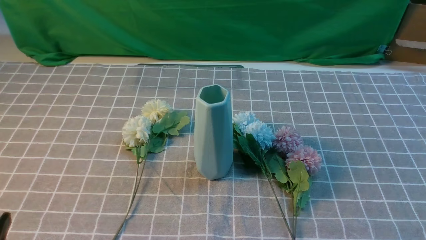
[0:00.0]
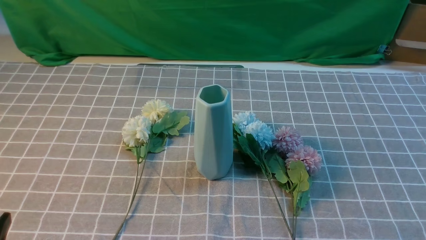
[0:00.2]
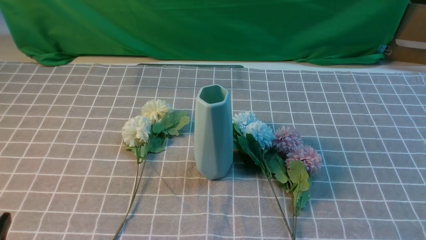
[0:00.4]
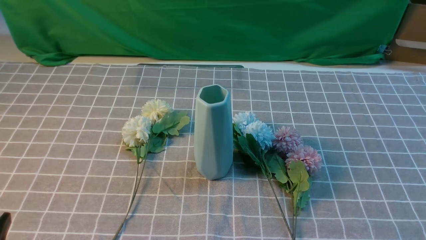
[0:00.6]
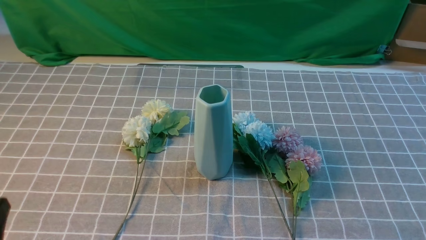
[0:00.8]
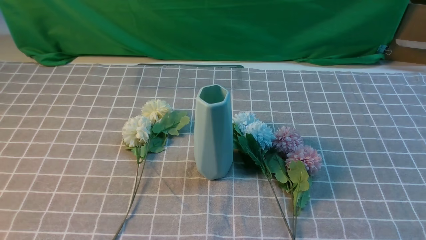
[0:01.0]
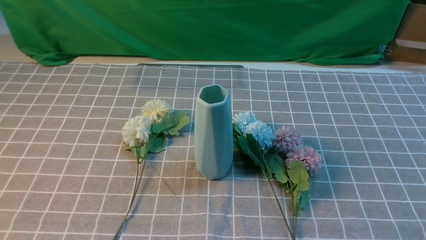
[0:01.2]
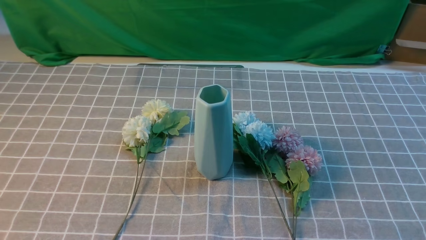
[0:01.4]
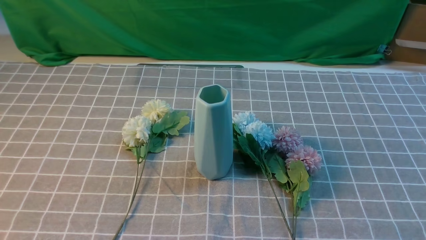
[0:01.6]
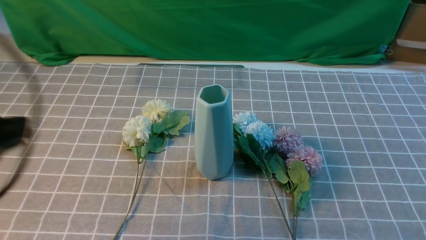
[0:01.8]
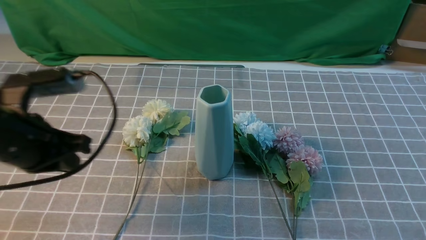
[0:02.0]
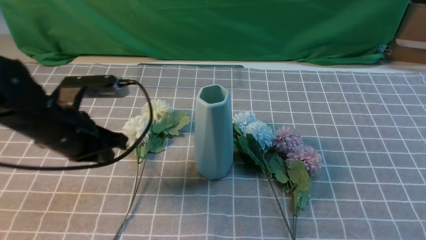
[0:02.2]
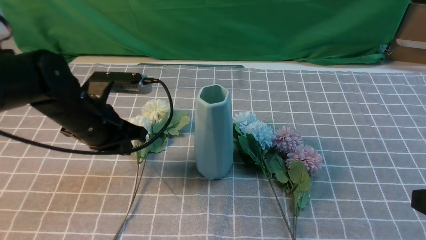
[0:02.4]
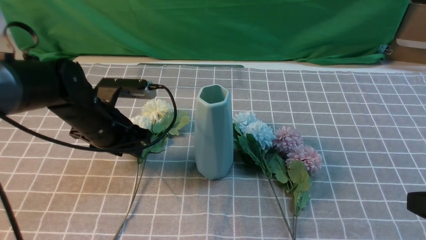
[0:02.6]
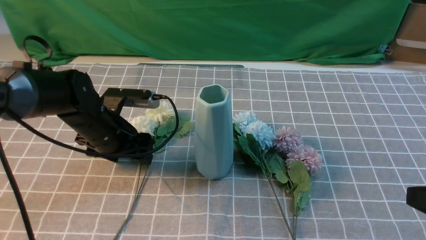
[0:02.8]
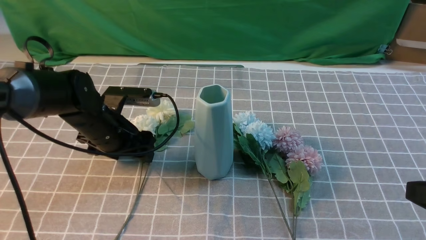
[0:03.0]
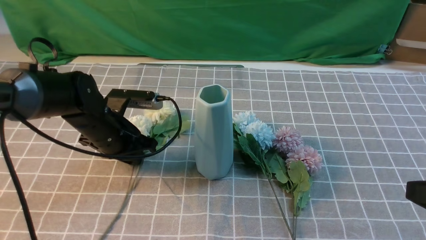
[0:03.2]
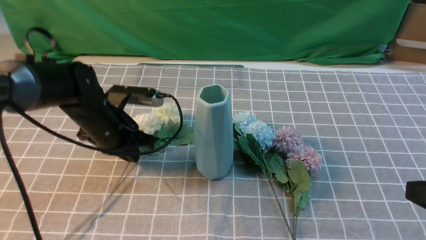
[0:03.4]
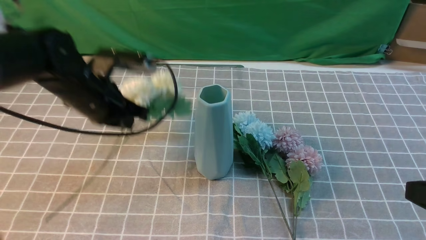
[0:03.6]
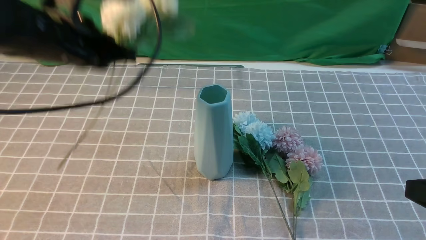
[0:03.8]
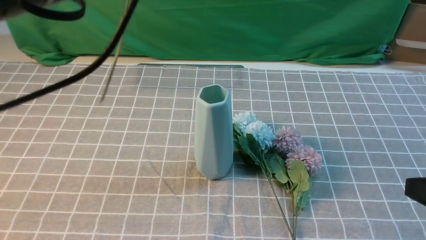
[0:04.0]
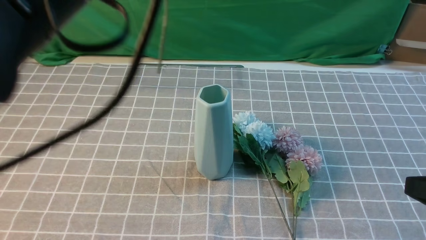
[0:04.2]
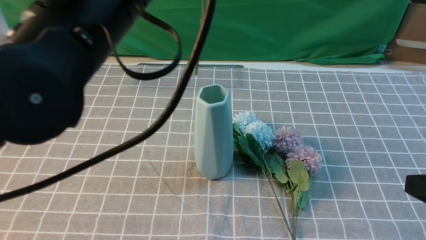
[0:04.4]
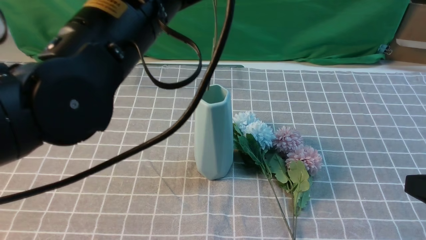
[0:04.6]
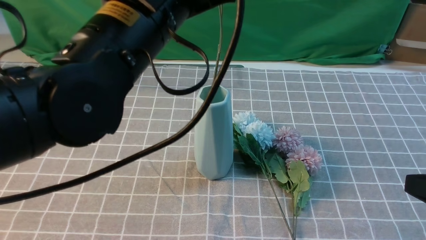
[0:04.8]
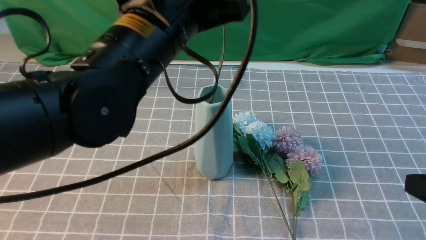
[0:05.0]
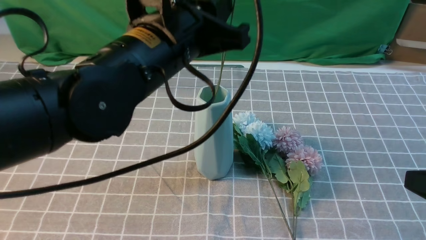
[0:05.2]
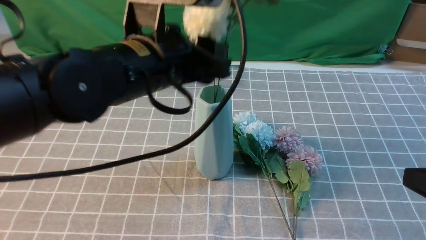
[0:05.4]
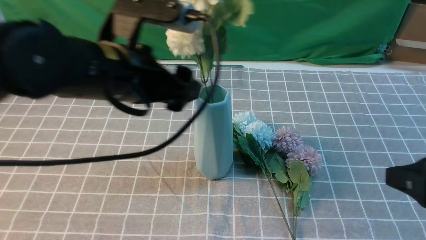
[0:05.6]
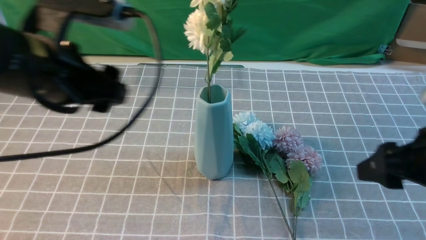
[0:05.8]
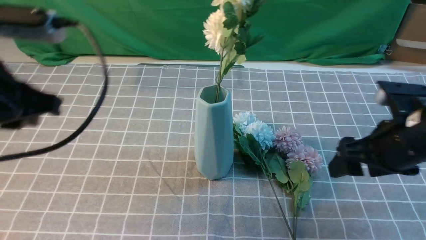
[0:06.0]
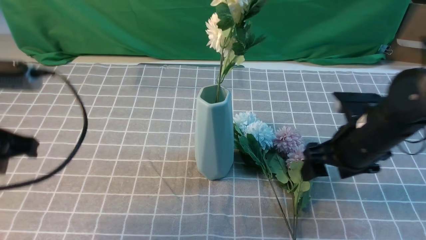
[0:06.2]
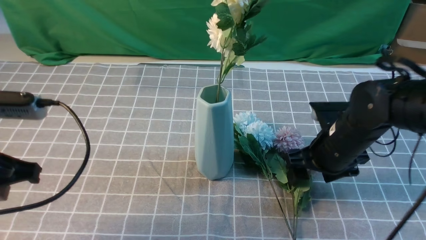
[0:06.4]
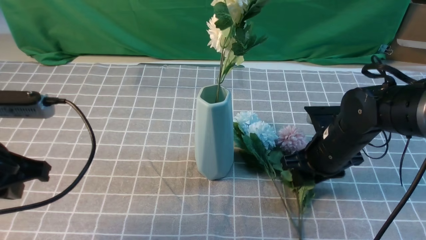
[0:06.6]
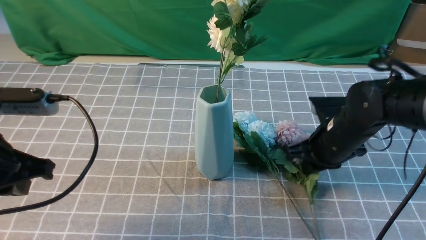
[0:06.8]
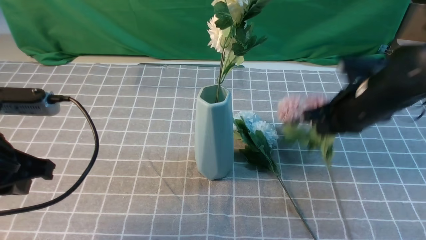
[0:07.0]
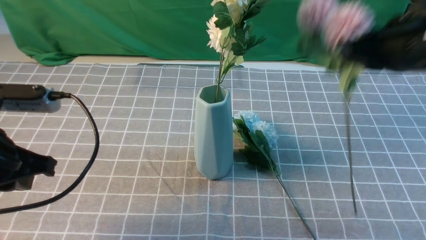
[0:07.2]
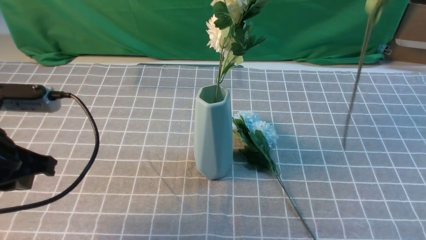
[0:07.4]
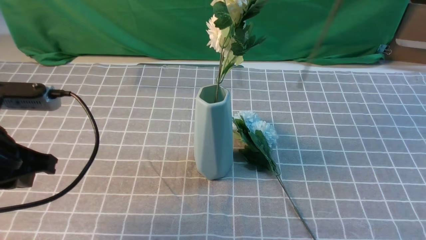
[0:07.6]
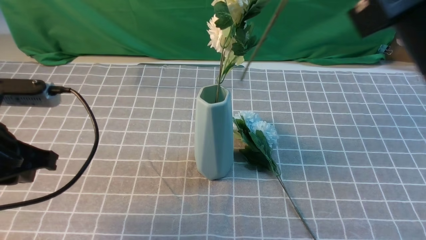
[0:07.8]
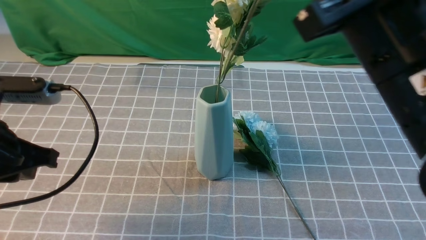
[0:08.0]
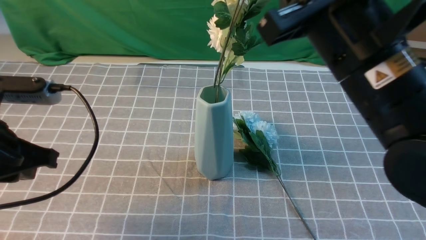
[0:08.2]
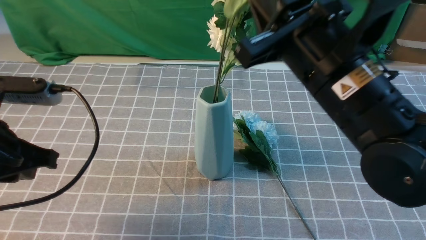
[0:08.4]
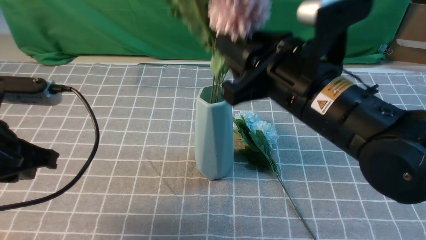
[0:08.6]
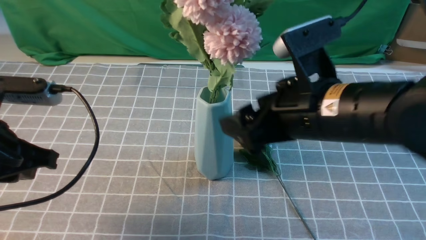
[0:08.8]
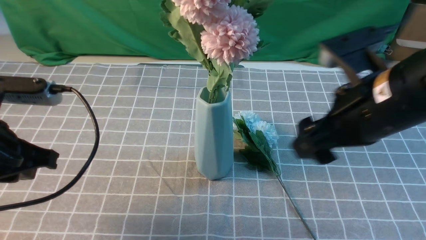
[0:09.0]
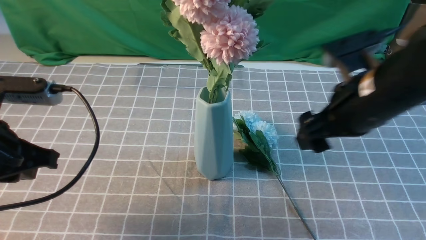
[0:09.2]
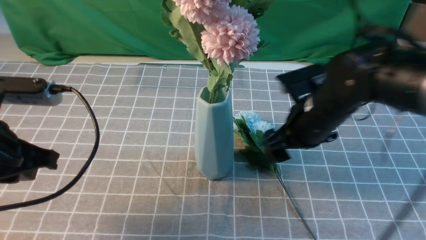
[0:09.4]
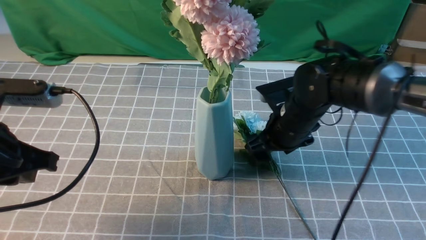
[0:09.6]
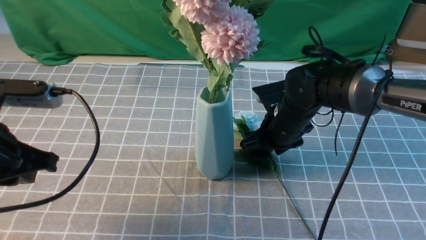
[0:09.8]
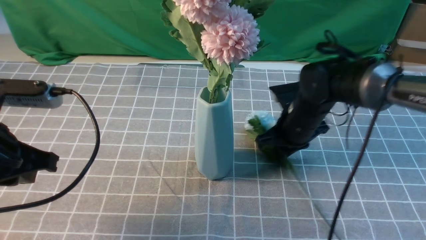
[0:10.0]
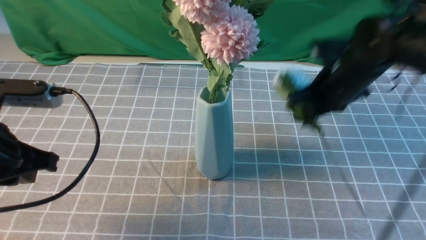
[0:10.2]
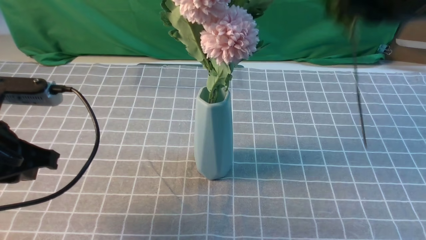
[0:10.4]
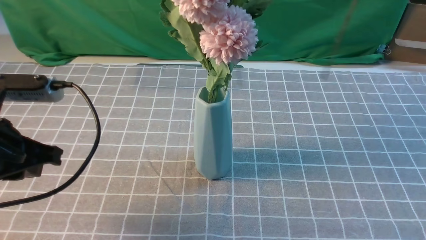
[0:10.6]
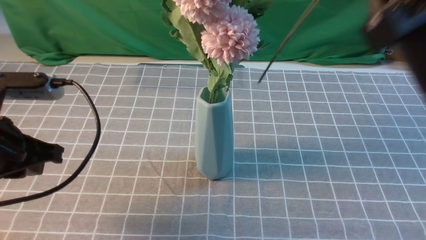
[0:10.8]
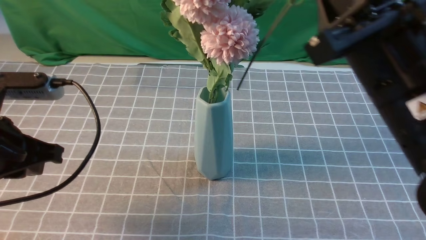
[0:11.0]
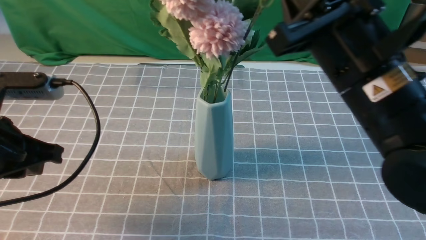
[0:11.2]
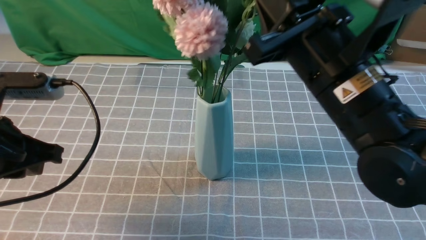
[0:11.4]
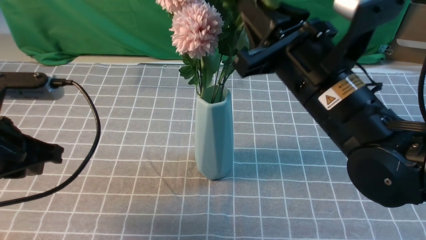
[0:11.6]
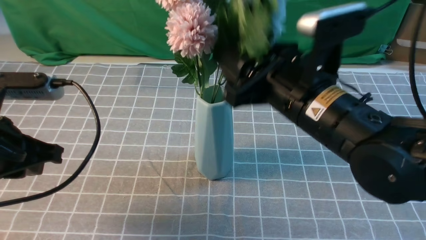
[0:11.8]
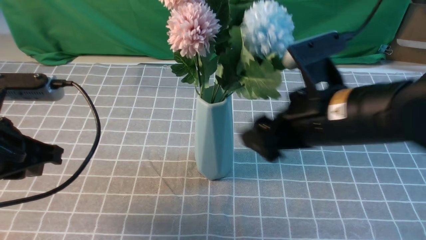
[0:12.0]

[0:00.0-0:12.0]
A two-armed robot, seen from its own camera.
Task of the whole recording: insert the flowers into the vase on the table with the grey tablecloth.
Step, 0:00.0 to 0:03.4: use the left arm to grab a bunch of fresh flowers.
Step, 0:03.6 to 0:05.6: use the left arm to insert the flowers into the vase.
Step, 0:05.8 to 0:06.8: use the right arm to grab a bunch of fresh flowers.
Step, 0:07.0 to 0:08.6: use the right arm to insert the flowers into the vase.
Step, 0:09.0 to 0:10.0: use the right arm to grab a bunch of fresh flowers.
Step, 0:10.2 to 0:11.8: use the right arm to insert the flowers into the vase.
0:01.6 to 0:03.0: The left gripper moves forward and downward, roughly 35 cm, and opens; the right gripper moves upward and forward, about 10 cm.
0:03.0 to 0:04.4: The left gripper moves upward and backward, approximately 30 cm, and closes.
0:04.4 to 0:06.0: The left gripper shifts some 15 cm to the left and downward, and opens, while the right gripper goes roughly 10 cm forward, and opens up.
0:06.0 to 0:07.6: The left gripper travels downward by some 5 cm, and closes. Meanwhile the right gripper moves upward, roughly 20 cm, and closes its fingers.
0:07.6 to 0:09.0: The right gripper shifts about 15 cm downward and to the left, and opens.
0:09.0 to 0:10.4: The right gripper heads forward and to the right, covering some 10 cm, goes downward and returns, roughly 15 cm each way, and closes its fingers.
0:10.4 to 0:12.0: The right gripper travels backward and to the left by approximately 10 cm, and opens.

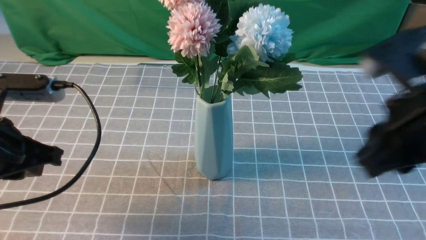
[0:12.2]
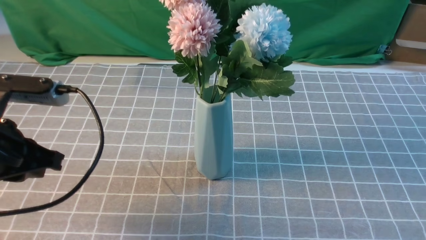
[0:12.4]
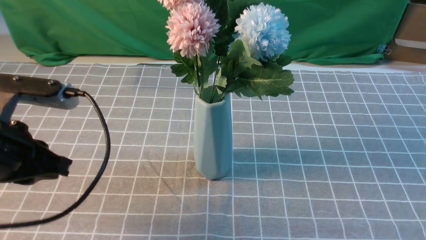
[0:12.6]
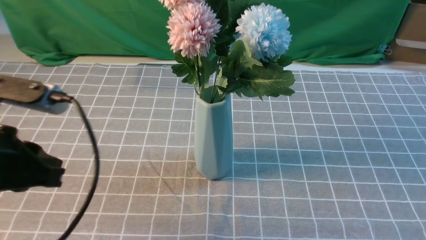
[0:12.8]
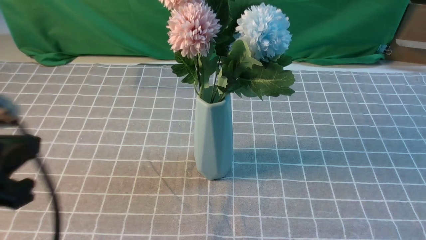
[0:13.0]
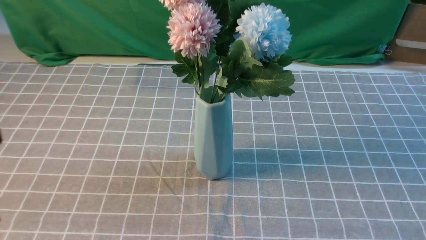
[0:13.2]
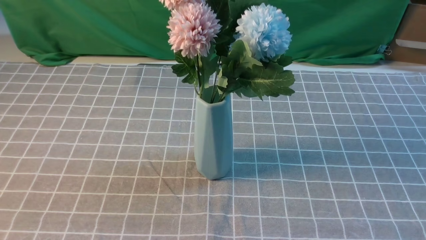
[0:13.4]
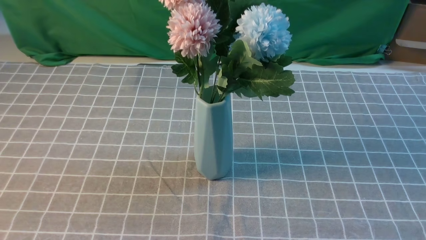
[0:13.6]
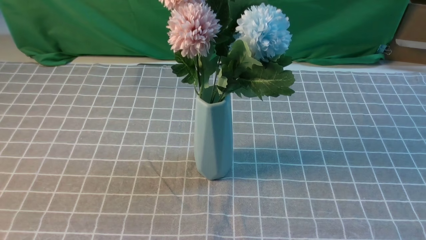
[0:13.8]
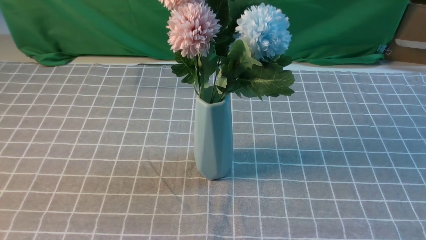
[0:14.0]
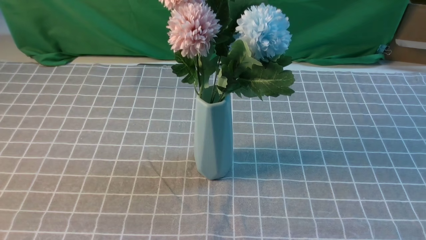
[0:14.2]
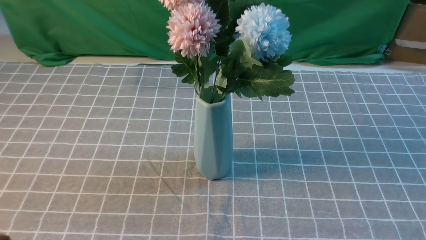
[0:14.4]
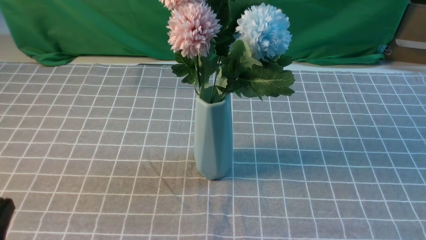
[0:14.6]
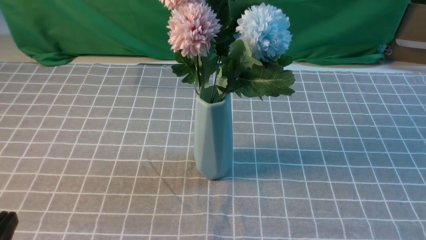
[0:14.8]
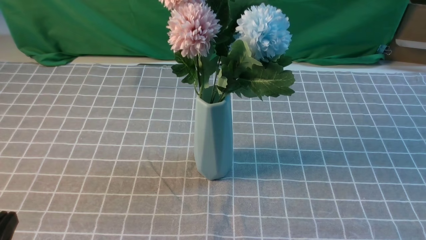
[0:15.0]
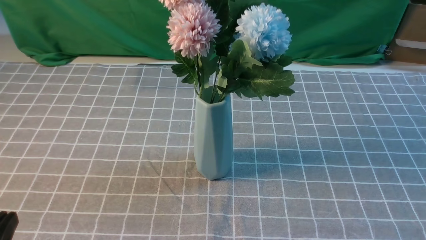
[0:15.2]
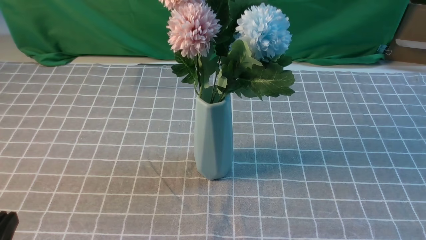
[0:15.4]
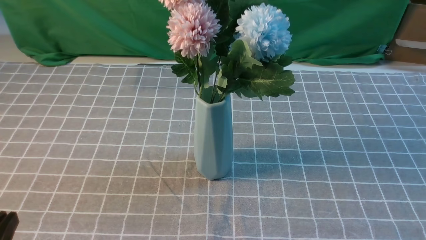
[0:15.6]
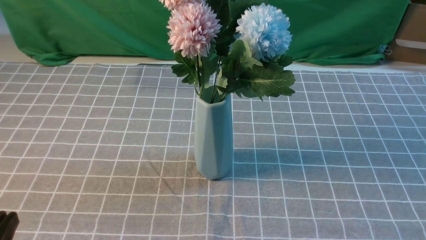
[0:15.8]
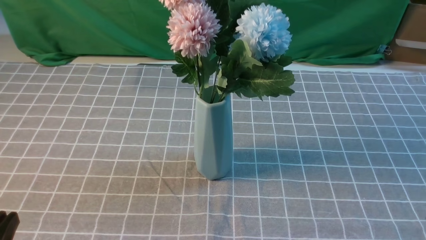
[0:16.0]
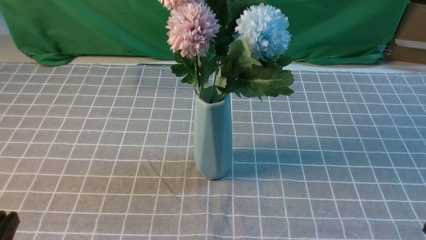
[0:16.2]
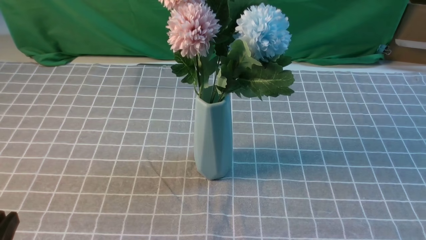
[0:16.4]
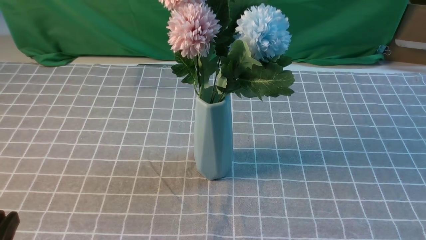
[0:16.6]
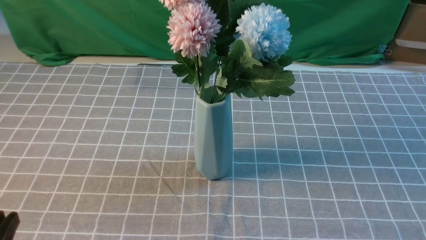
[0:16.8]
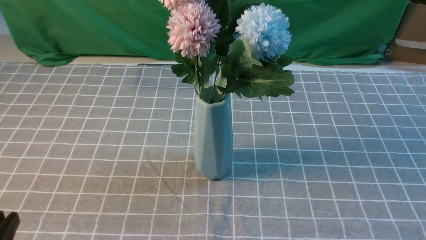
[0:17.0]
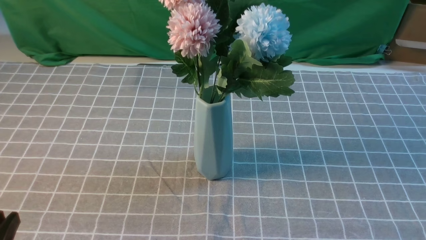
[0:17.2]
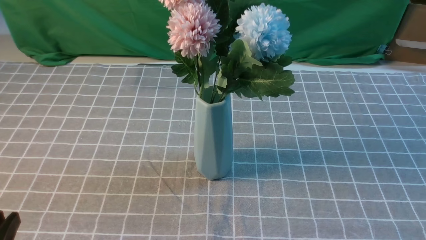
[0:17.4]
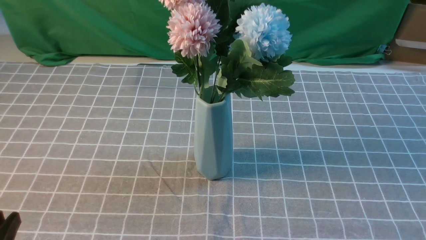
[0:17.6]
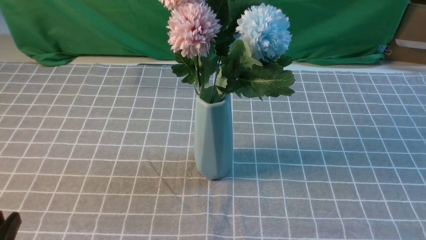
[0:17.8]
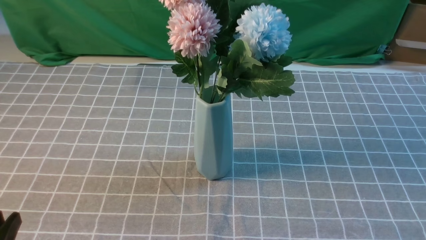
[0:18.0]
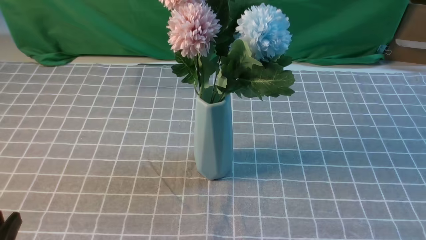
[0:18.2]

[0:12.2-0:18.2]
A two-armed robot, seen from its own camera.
Task of the whole recording: insert the flowers into the vase on the table with the grey tablecloth.
0:12.2 to 0:13.8: The left gripper is displaced backward by about 15 cm, while the right gripper moves backward and to the right, approximately 25 cm.
0:16.6 to 0:18.2: Both grippers stay about where they are.
